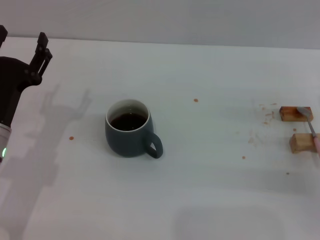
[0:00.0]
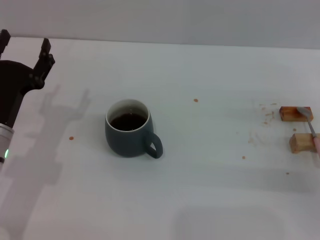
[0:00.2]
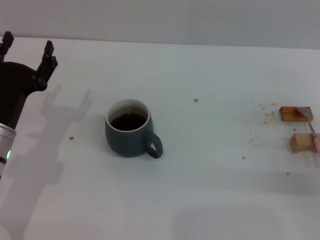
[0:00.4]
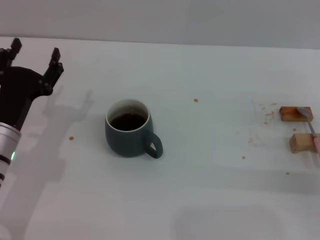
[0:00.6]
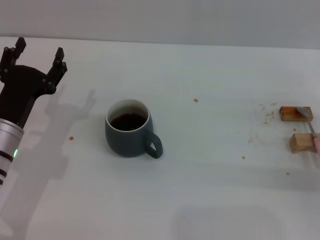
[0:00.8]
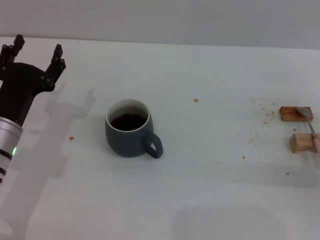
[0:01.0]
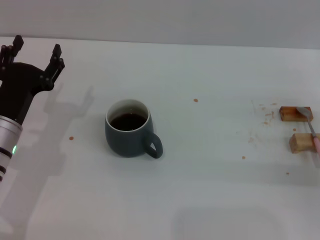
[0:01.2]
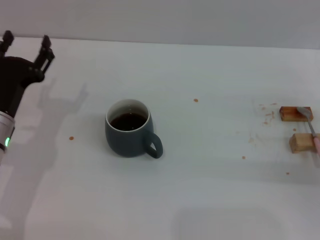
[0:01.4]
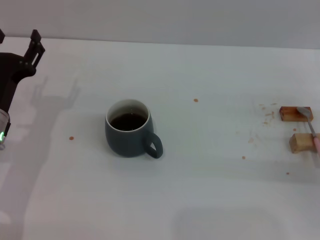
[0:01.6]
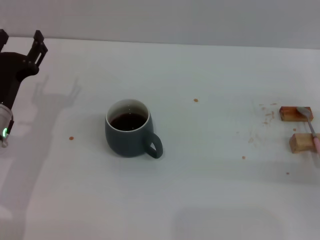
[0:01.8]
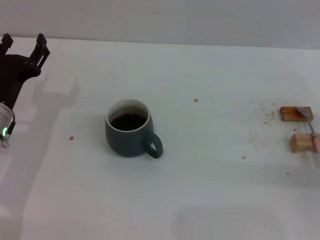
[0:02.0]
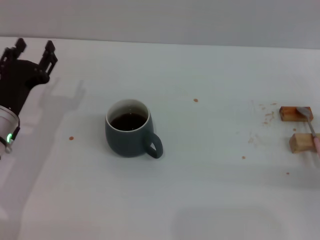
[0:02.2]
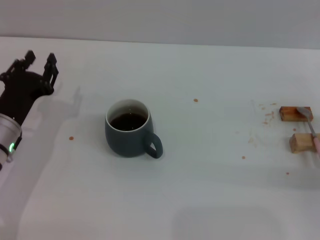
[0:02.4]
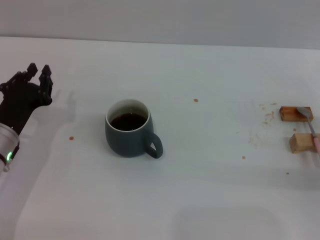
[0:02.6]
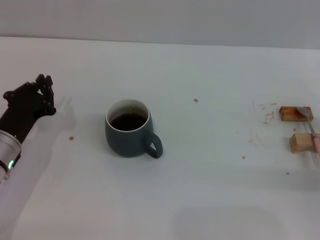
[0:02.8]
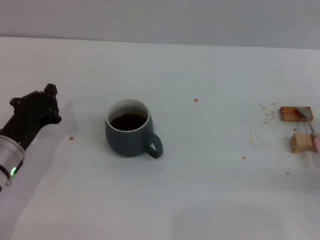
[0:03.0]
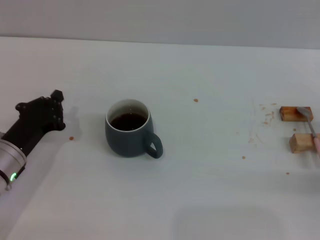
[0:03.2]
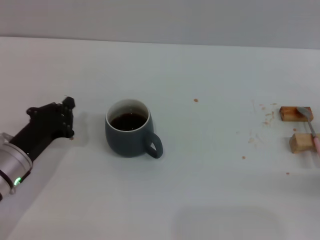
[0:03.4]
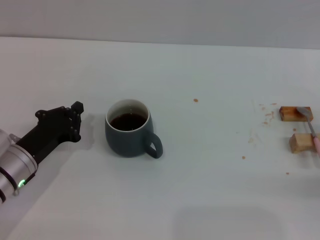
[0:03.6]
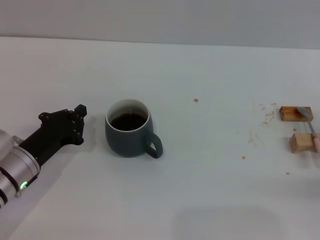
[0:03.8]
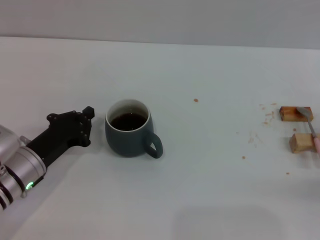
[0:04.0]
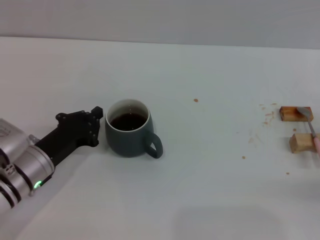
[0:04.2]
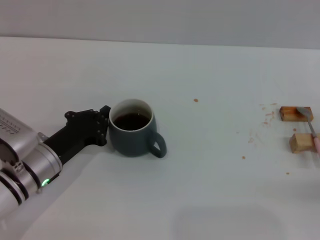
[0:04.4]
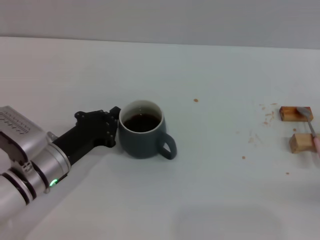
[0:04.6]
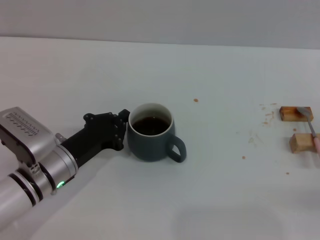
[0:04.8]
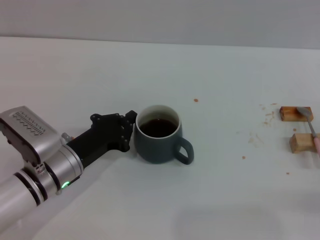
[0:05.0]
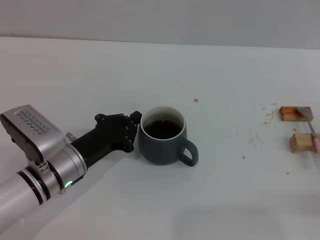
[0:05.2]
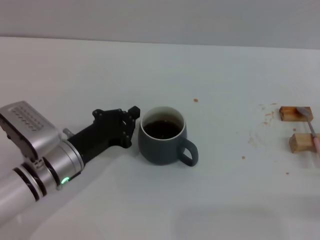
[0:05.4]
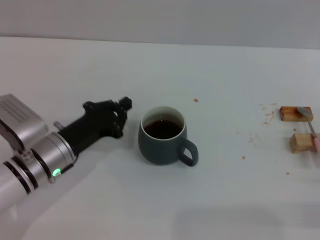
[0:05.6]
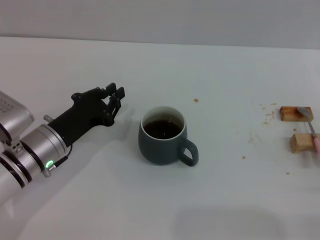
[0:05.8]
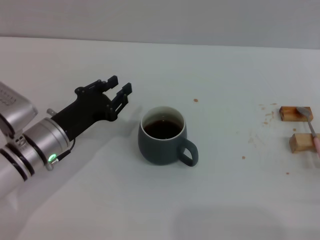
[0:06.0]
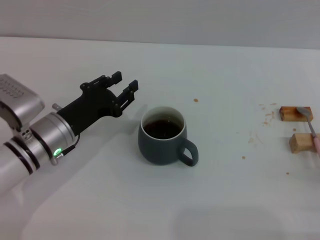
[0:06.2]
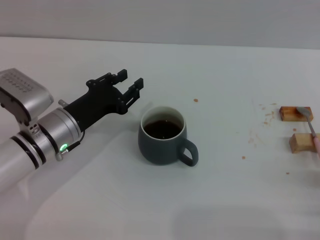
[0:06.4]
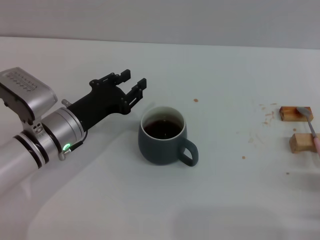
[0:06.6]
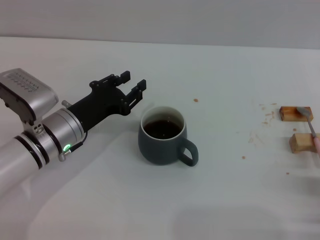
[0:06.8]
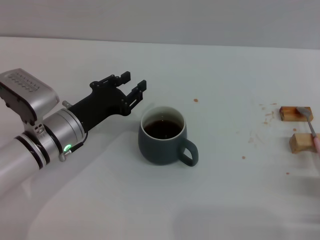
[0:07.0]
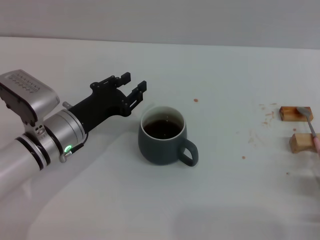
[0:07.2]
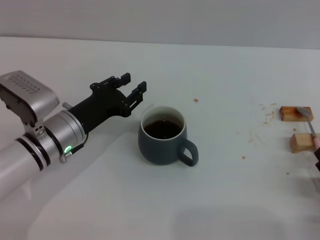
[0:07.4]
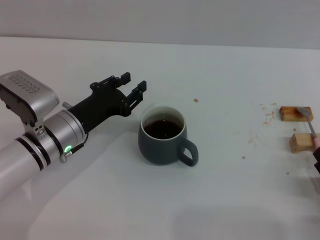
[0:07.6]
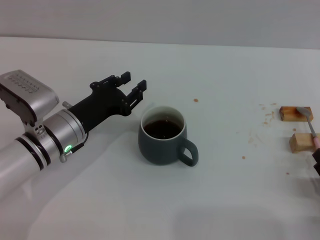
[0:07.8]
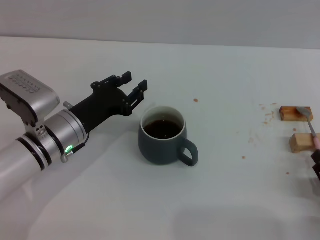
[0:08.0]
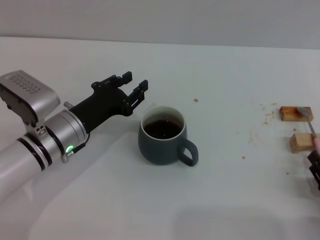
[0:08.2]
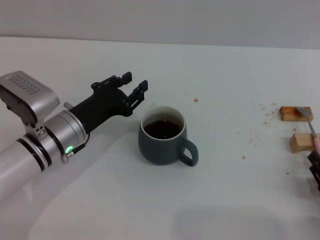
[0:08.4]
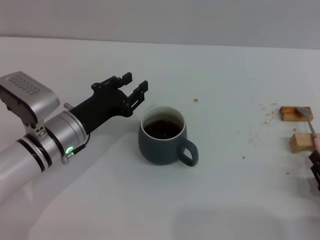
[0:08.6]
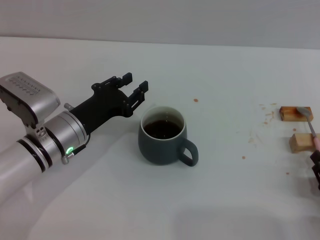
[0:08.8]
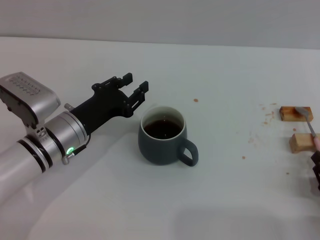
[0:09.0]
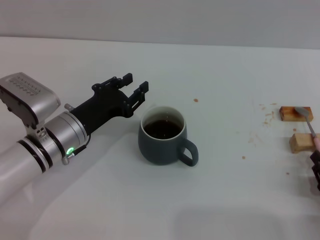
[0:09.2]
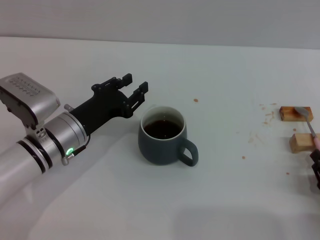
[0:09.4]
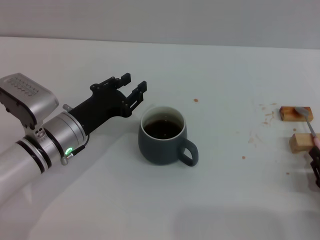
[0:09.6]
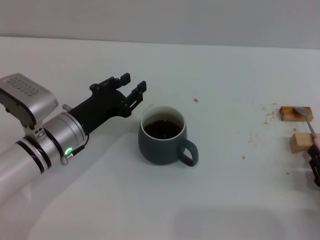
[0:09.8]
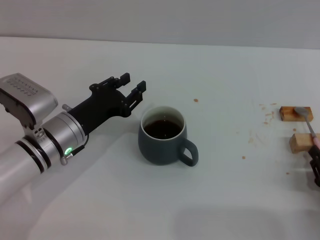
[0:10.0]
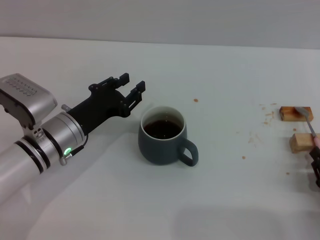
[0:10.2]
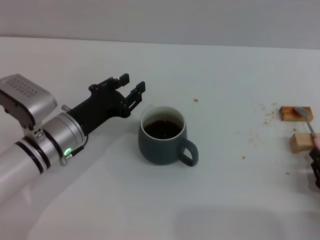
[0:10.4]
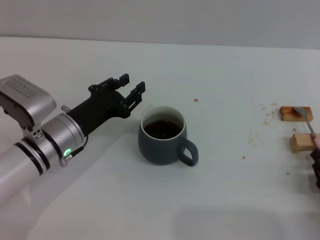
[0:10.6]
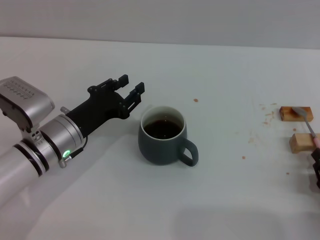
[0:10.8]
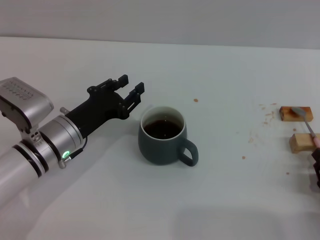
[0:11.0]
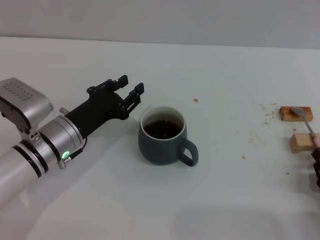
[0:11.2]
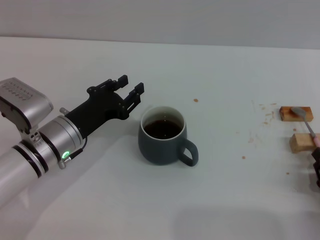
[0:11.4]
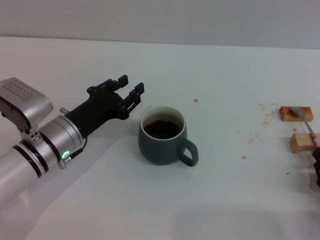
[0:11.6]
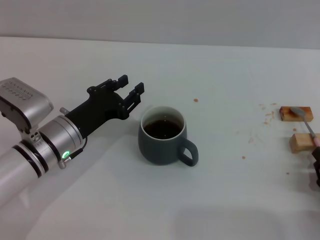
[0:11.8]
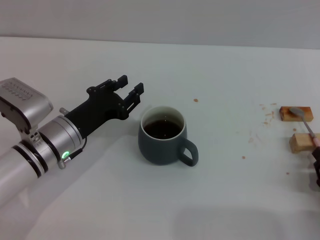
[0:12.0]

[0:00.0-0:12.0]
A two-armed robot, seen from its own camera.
Task of the whole recording: Move the grey cup to the center, lift the pink spoon, stir it three times in the cup, and put the spoon into the cup.
Step, 0:00.0 to 0:05.6: Move the cup with coffee to the center of view with the left gripper.
0:00.0 to 0:01.6: The grippers stay close to where they were, moving slightly.
0:01.6 to 0:03.0: The left gripper closes.
0:03.0 to 0:04.4: The grippers stay close to where they were, moving slightly.
0:04.4 to 0:06.0: The right gripper is displaced backward by about 10 cm.
0:06.0 to 0:07.6: The right gripper shifts by about 5 cm, while the left gripper opens.
0:07.6 to 0:09.0: The right gripper closes.
0:09.0 to 0:12.0: Both grippers stay put.

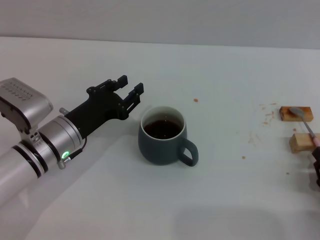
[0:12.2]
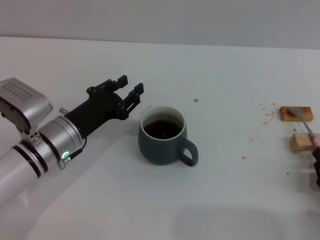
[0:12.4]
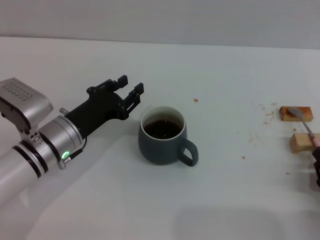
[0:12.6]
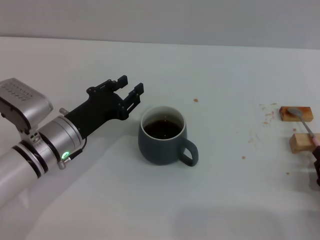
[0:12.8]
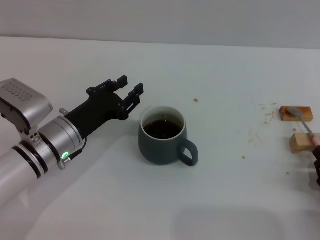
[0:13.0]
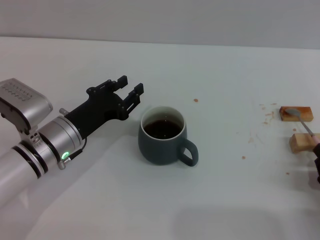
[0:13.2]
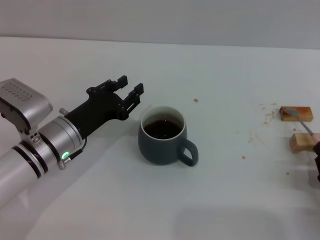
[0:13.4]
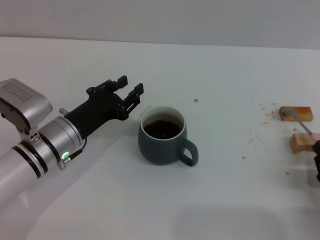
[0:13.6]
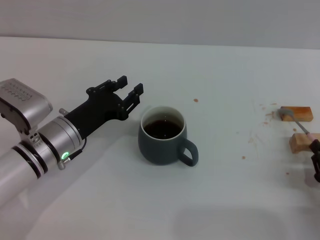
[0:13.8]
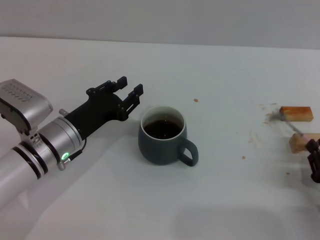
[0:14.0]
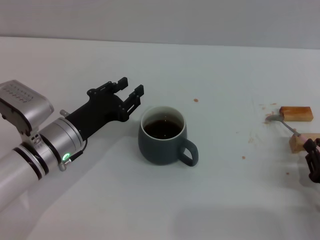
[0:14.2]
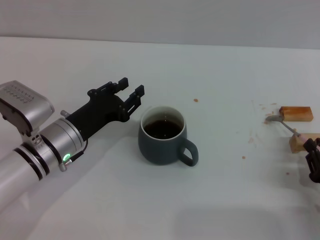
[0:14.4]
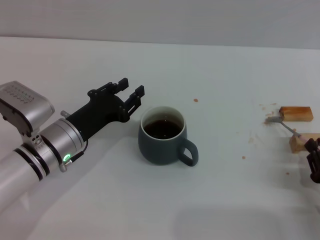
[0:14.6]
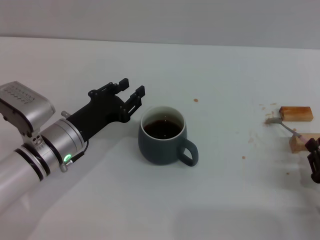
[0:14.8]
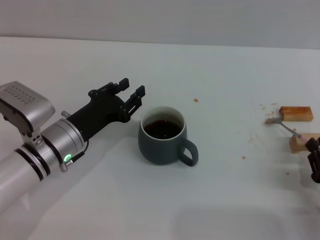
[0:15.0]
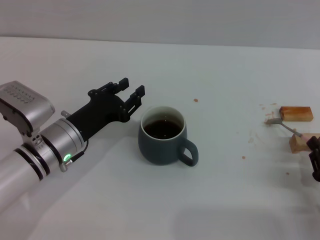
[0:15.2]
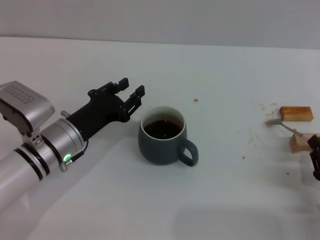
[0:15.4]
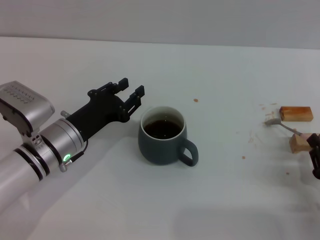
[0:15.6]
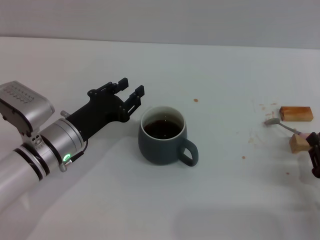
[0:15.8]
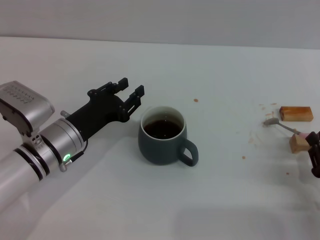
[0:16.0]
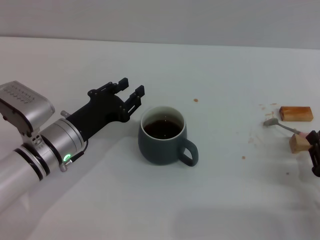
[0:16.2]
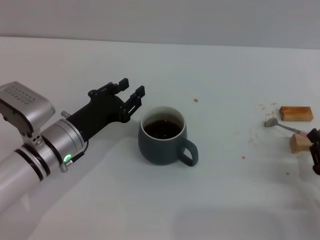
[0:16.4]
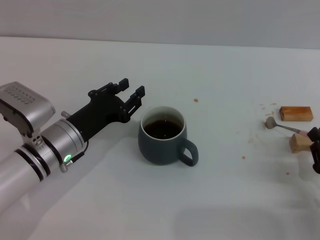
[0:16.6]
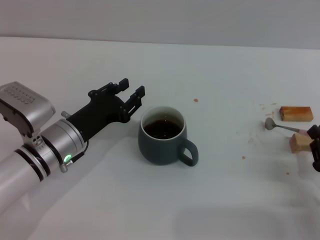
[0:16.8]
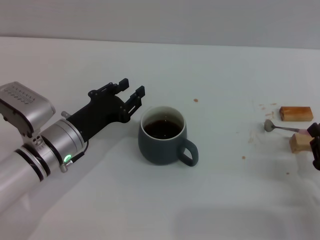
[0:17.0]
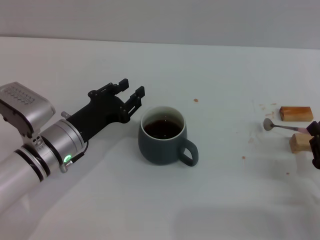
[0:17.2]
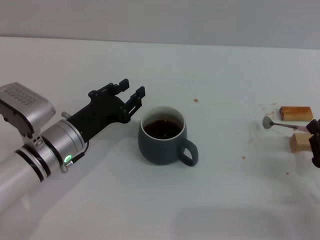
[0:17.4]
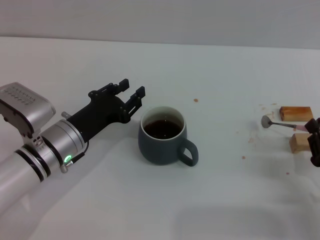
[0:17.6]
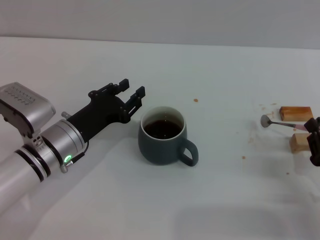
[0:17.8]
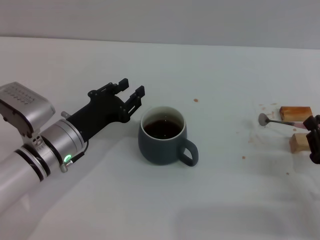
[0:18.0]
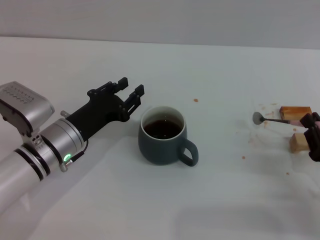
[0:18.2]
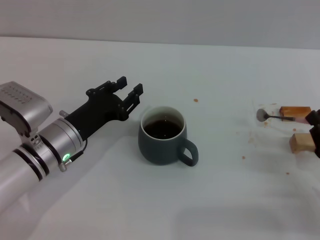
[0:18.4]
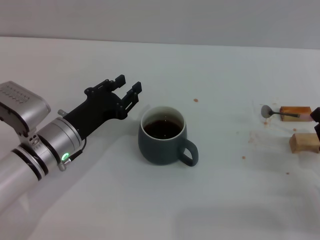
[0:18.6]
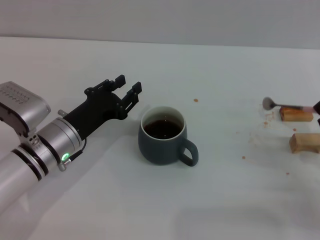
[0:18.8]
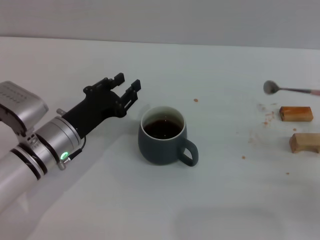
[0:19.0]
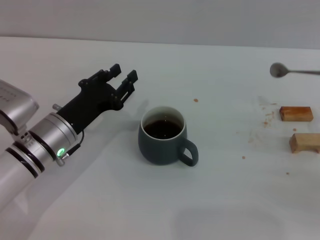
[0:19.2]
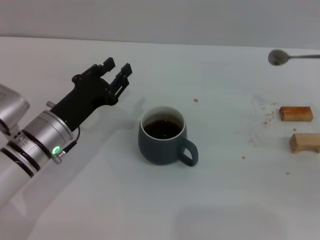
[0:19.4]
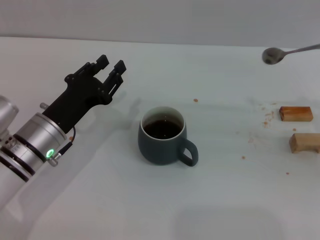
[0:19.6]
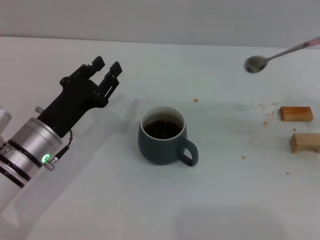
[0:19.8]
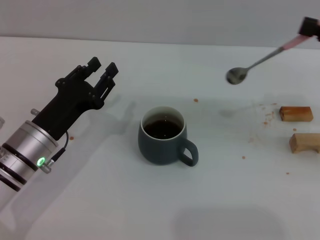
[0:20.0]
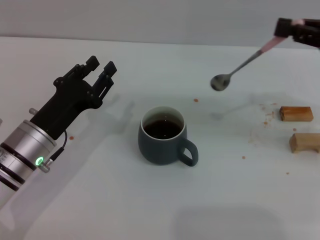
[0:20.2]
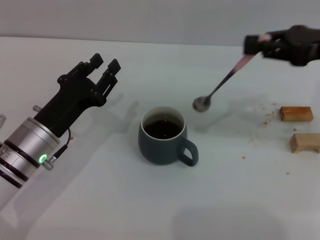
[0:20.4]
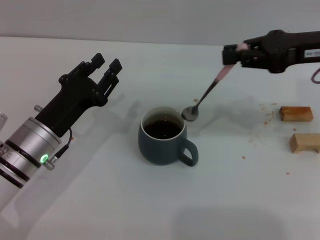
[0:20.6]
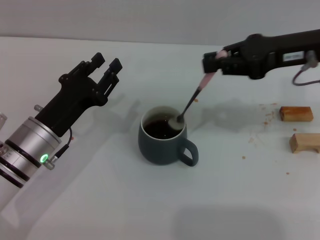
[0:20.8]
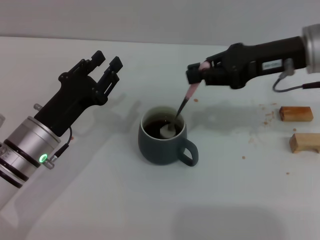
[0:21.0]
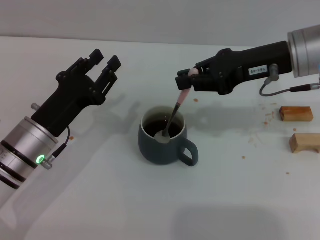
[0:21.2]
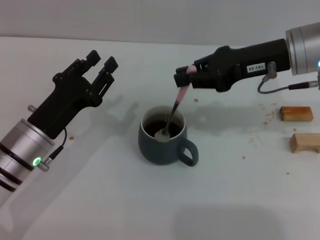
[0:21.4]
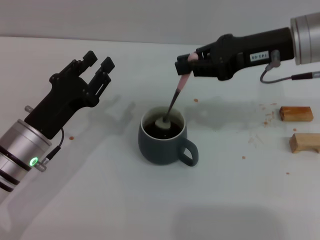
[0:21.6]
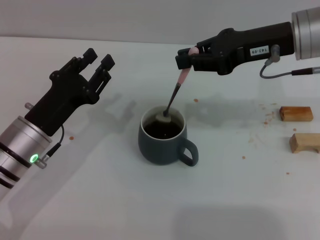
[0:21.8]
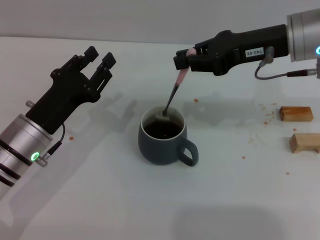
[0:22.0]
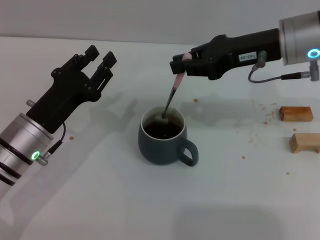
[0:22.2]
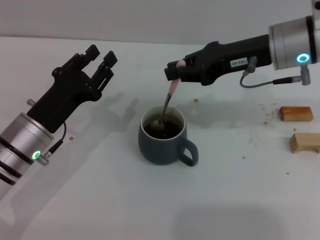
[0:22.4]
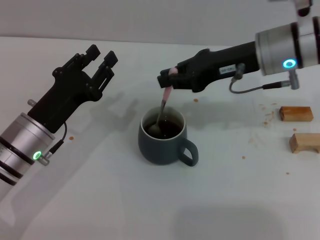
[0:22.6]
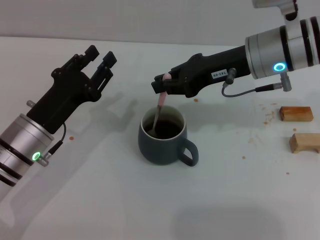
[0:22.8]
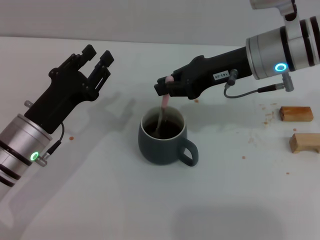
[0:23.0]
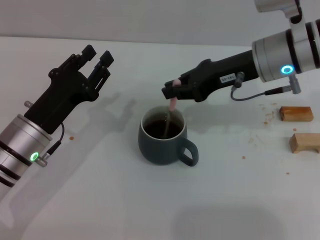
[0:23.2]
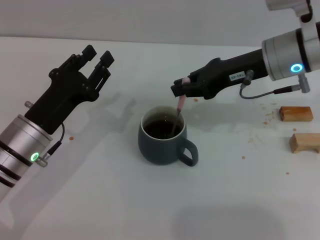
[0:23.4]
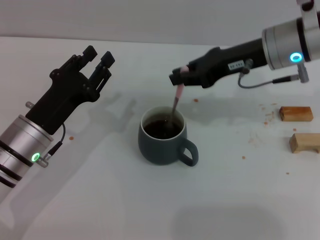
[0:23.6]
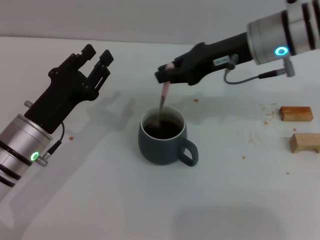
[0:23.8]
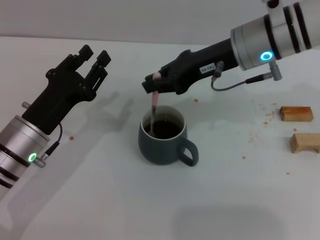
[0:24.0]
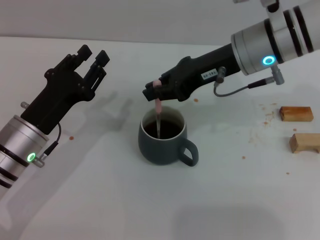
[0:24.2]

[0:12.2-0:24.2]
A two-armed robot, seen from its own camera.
Task of the whole recording: Move the grey cup to the center, lift the pink spoon, stir it three times in the cup, and put the spoon into the cup.
Step, 0:12.2 to 0:18.6: Pick up the spoon with the right gripper.
0:12.2 to 0:13.8: Both grippers stay about where they are.
0:13.8 to 0:15.2: Neither gripper changes place.
0:15.2 to 0:16.6: The two grippers keep their place.
0:16.6 to 0:18.2: The grippers stay close to where they were, moving slightly.
0:18.2 to 0:19.8: The right gripper goes roughly 20 cm upward, forward and to the right.
0:19.8 to 0:21.2: The right gripper heads to the left and forward, covering approximately 20 cm.
0:21.2 to 0:22.6: There are only small adjustments of the grippers.
0:22.6 to 0:24.2: There are only small adjustments of the grippers.
